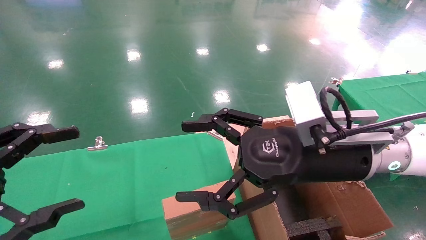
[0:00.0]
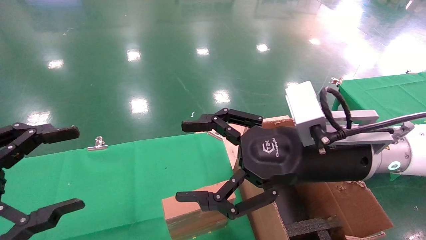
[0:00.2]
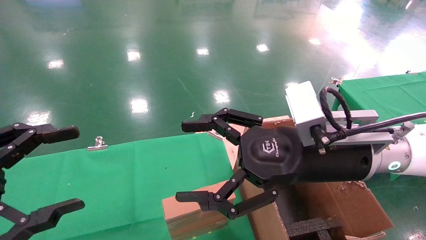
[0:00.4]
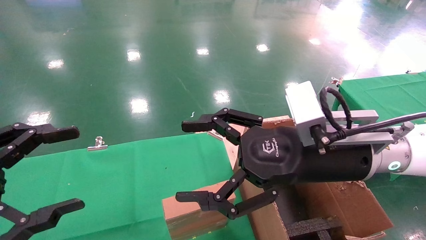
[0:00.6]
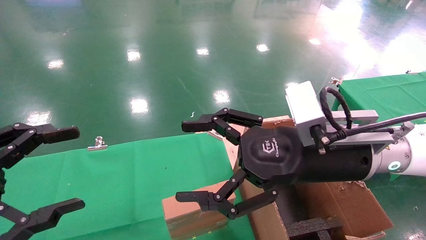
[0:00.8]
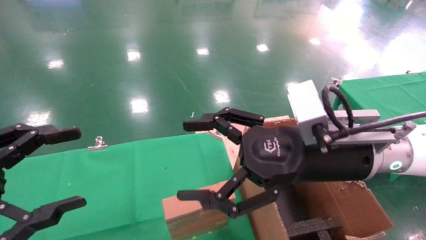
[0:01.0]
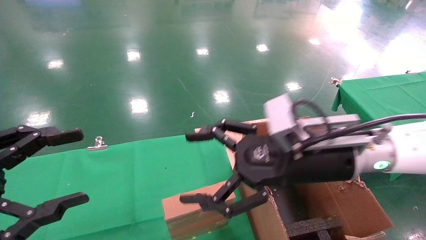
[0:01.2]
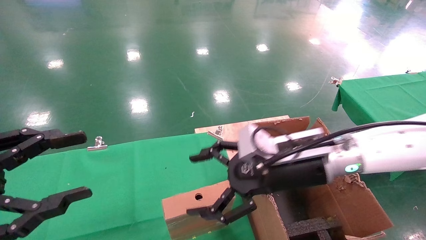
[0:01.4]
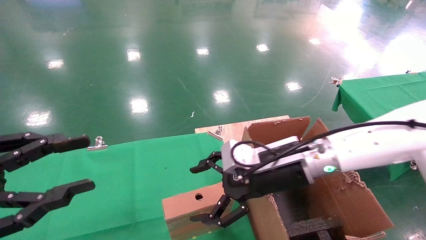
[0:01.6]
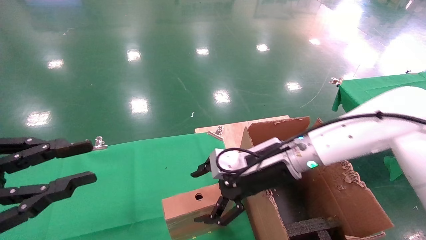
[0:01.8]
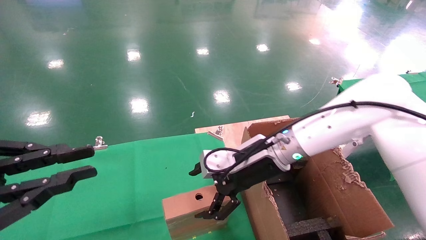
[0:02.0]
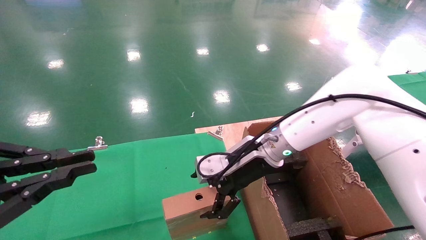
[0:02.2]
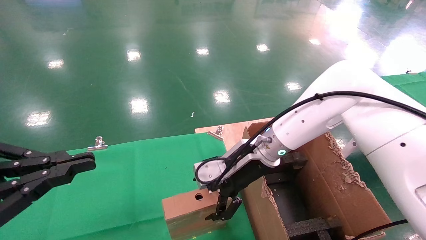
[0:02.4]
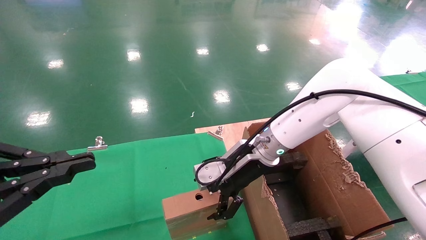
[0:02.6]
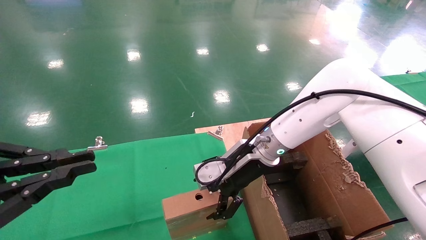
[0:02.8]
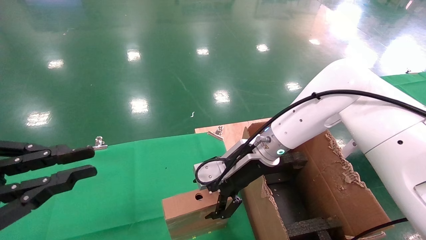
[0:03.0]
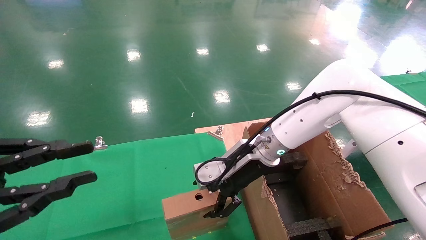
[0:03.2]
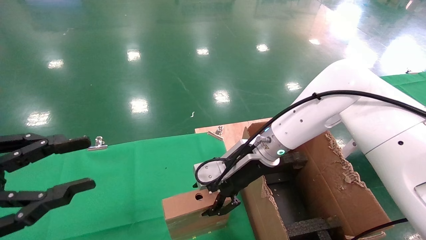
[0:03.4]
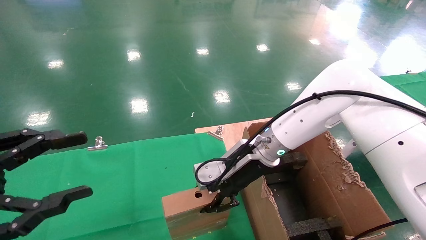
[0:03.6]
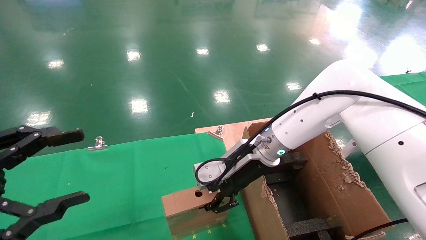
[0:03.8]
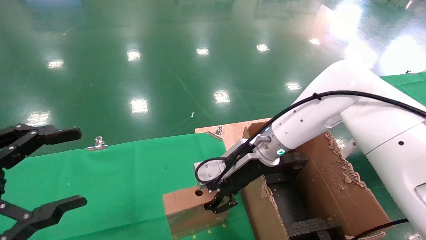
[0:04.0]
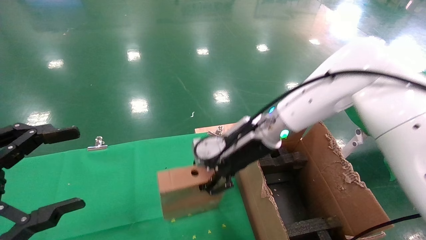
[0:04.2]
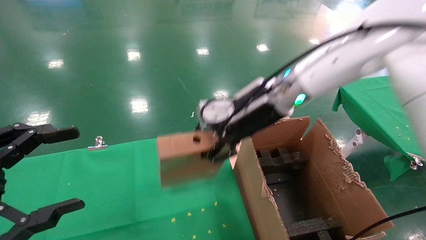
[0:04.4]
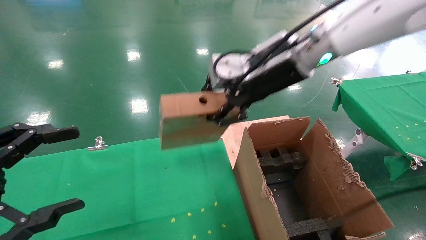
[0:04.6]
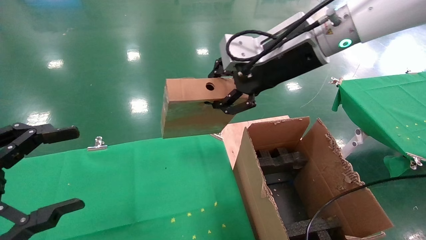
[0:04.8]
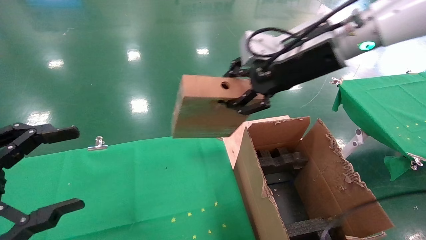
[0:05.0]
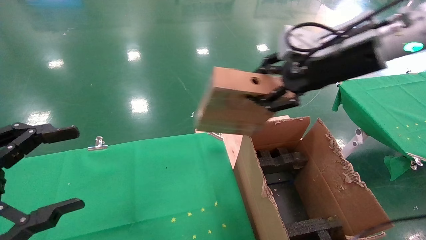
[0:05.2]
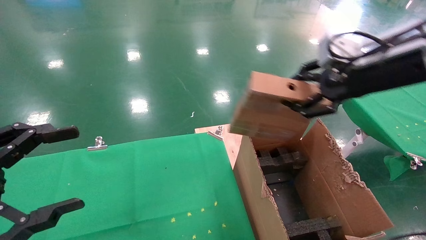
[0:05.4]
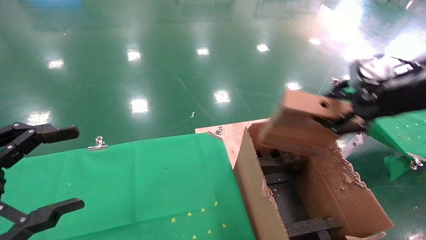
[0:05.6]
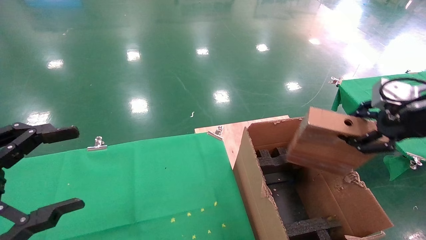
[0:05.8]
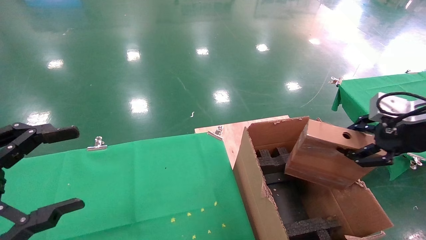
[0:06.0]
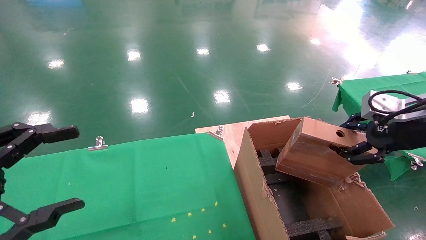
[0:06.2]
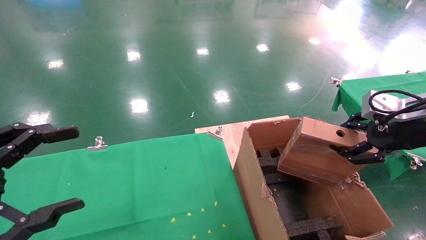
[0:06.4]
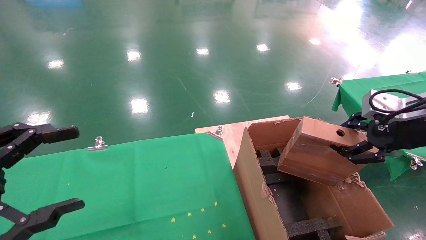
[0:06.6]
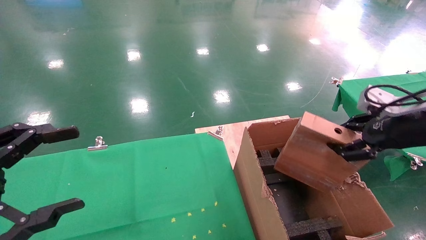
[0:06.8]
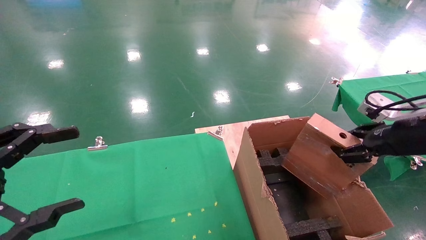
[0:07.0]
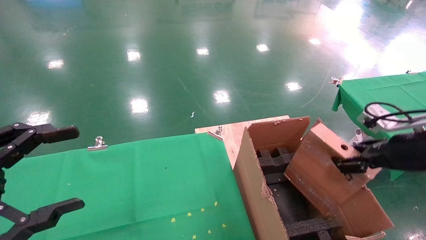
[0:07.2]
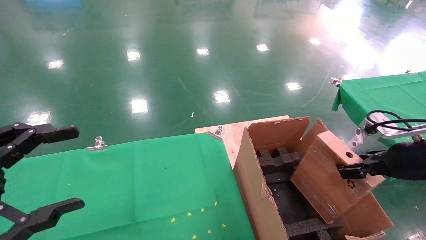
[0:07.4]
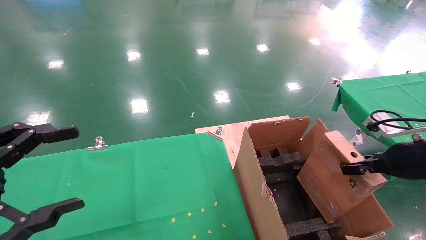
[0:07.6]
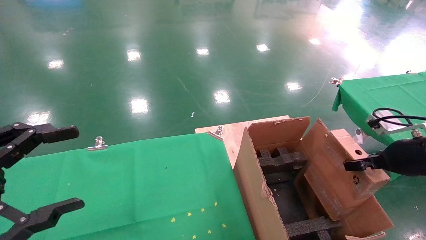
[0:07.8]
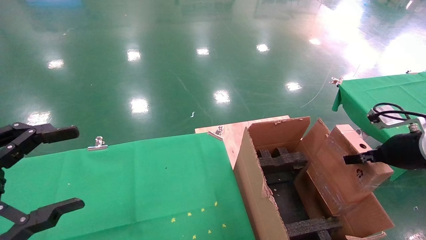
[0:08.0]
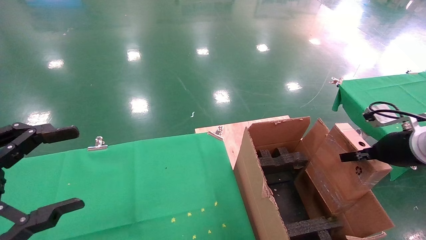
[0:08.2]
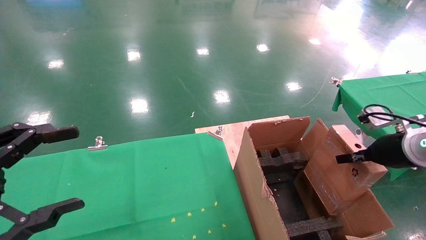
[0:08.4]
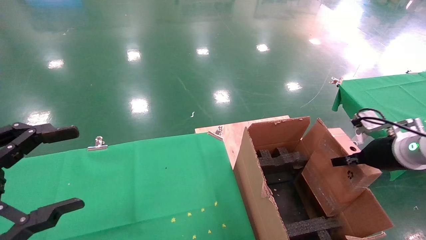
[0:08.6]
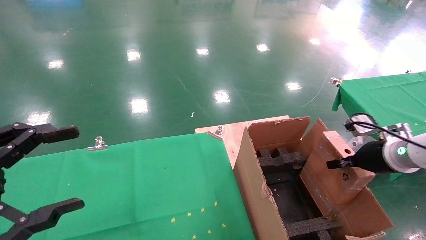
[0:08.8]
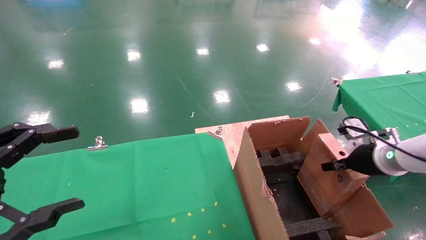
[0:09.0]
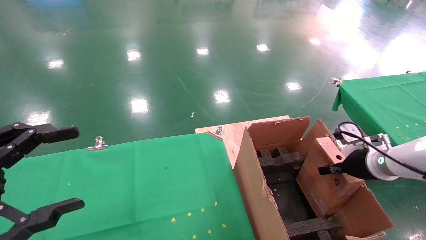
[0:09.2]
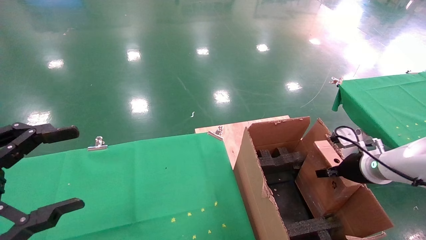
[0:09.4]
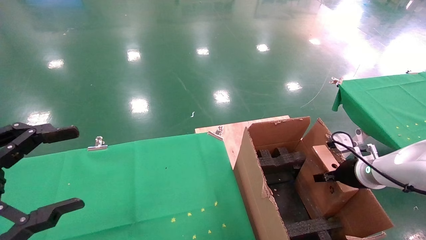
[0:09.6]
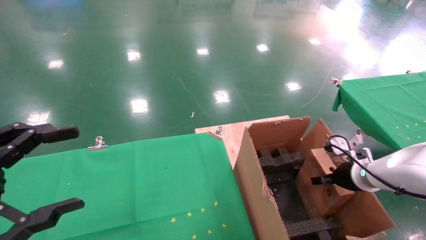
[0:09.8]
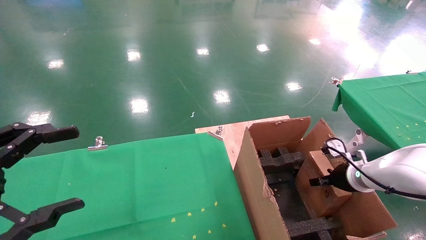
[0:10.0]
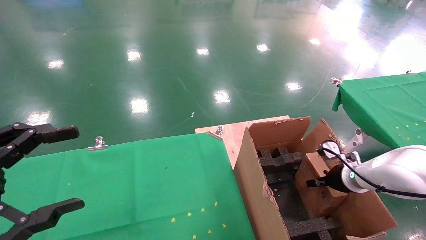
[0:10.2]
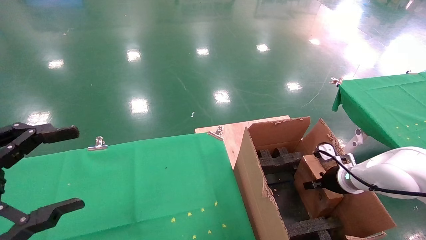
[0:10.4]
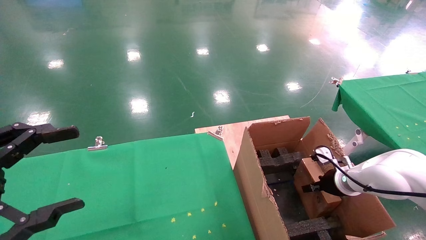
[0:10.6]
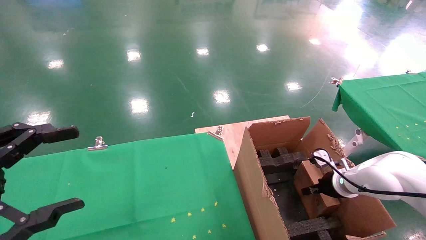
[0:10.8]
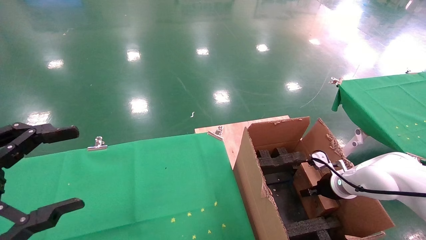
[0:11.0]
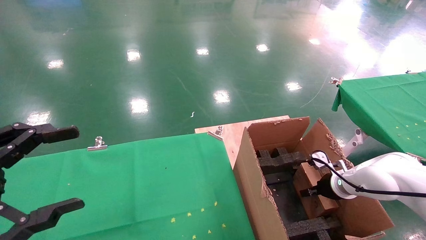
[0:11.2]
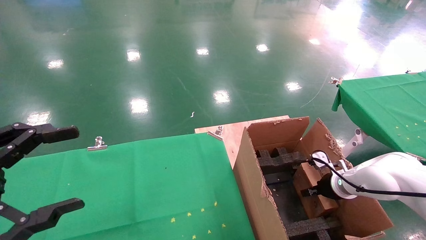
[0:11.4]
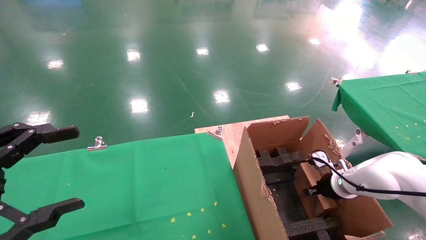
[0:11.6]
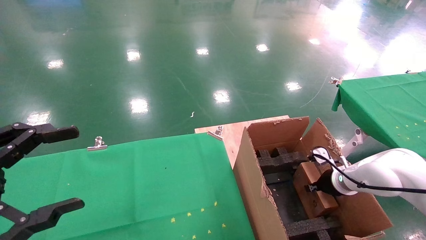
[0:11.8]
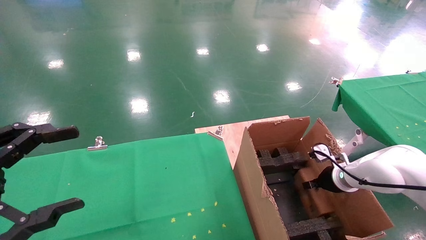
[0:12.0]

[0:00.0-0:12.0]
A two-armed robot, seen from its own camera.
Task of the whole recording: using a robotic arm to pick up a cardboard box and palace it the carton.
Step, 0:01.2 to 0:03.6: Pick up the mouse and the power cord paper box.
0:00.0 to 0:01.6: The left gripper closes its fingers; the right gripper heads forward and downward, covering about 10 cm.
0:01.6 to 0:03.0: The left gripper closes, while the right gripper moves forward, approximately 5 cm.
0:03.0 to 0:04.4: The right gripper shifts approximately 10 cm upward, and closes its fingers; the left gripper opens its fingers.
0:04.4 to 0:06.0: The right gripper travels to the right and backward by some 30 cm.
0:06.0 to 0:07.6: The right gripper heads downward, covering roughly 10 cm.
0:07.6 to 0:09.0: The right gripper shifts some 10 cm forward and downward.
0:09.0 to 0:10.4: The right gripper travels downward and forward by roughly 10 cm.
0:10.4 to 0:12.0: The right gripper opens its fingers.

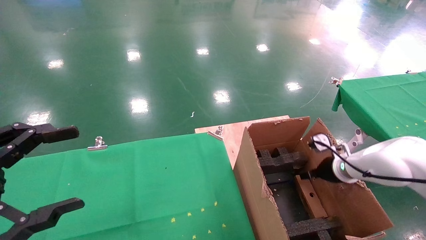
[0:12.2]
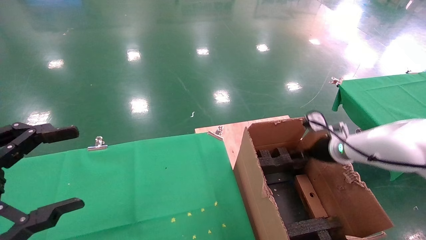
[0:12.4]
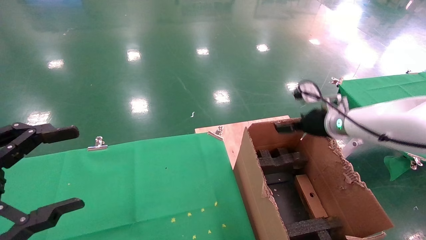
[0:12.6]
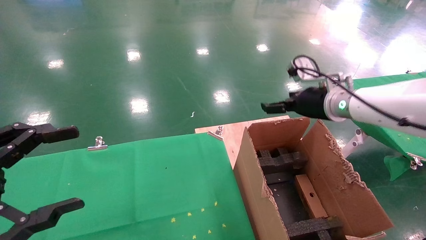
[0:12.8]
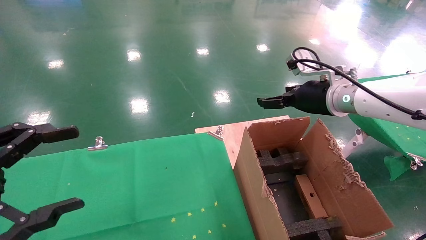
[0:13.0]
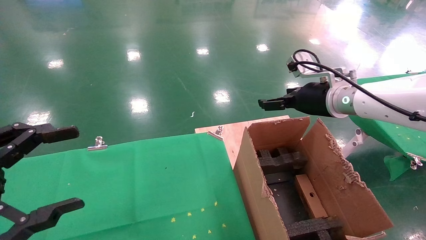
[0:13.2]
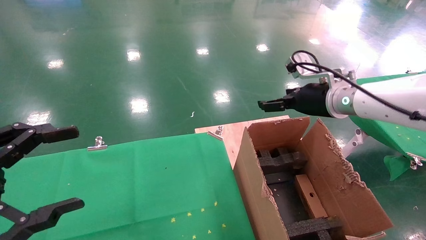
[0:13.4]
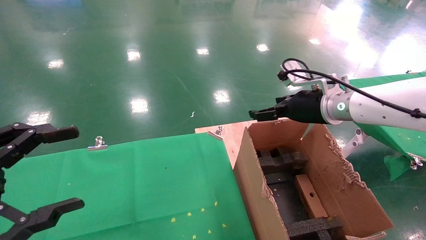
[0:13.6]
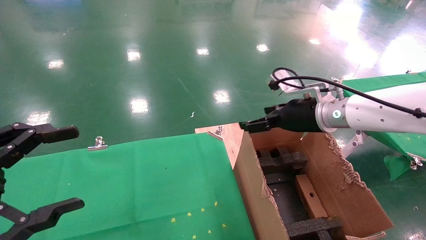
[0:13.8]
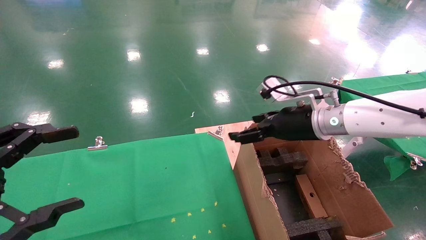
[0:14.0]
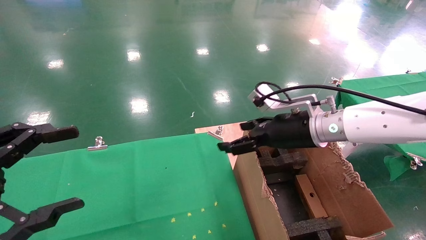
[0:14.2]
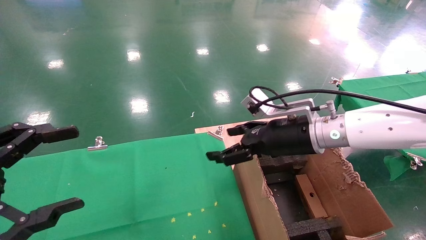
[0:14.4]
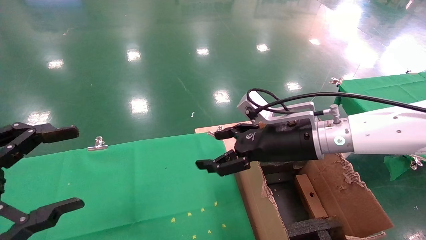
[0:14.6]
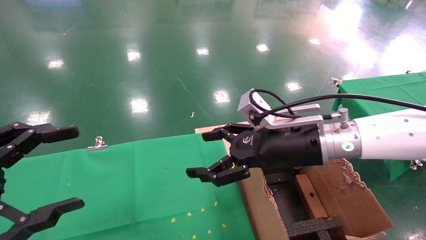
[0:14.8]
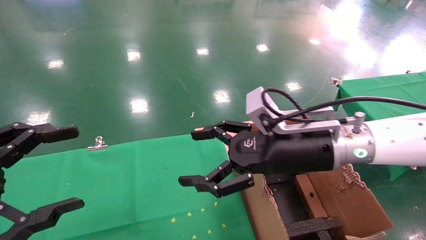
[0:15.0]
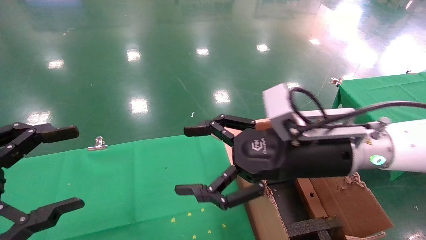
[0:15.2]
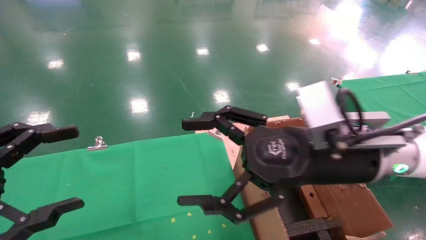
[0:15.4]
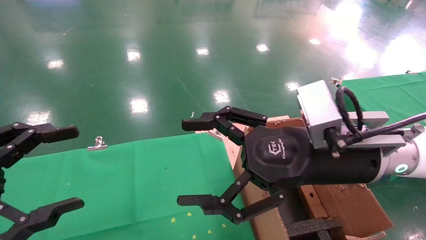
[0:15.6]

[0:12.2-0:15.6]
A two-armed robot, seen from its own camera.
Task of the whole recording: using a robotic arm to pick up a cardboard box and palace it the carton.
0:12.2 to 0:13.8: The right gripper goes some 20 cm upward and to the left, and opens its fingers.
0:13.8 to 0:15.6: The right gripper travels backward and to the left by roughly 15 cm.
